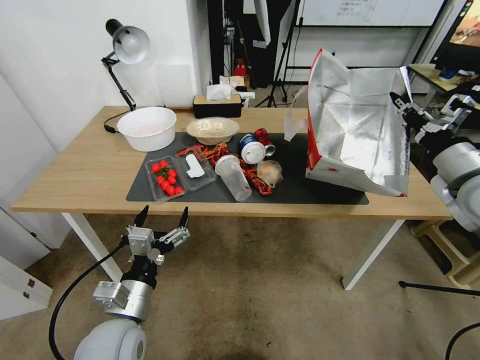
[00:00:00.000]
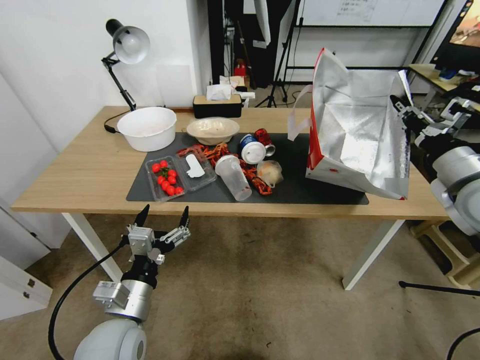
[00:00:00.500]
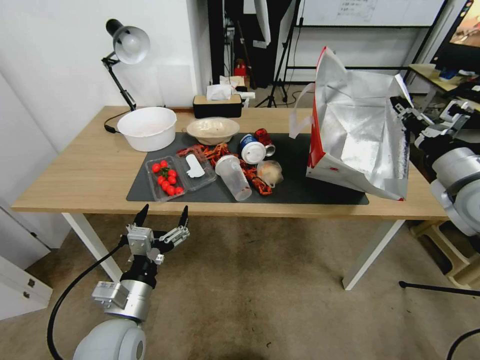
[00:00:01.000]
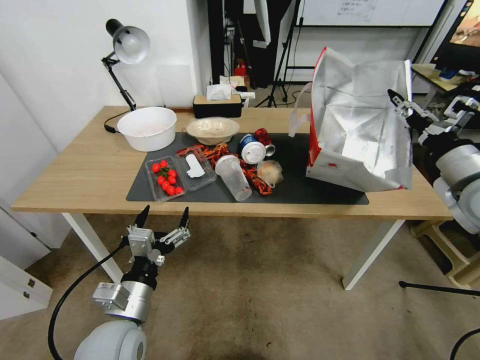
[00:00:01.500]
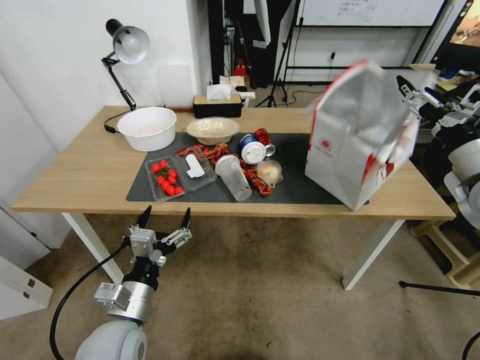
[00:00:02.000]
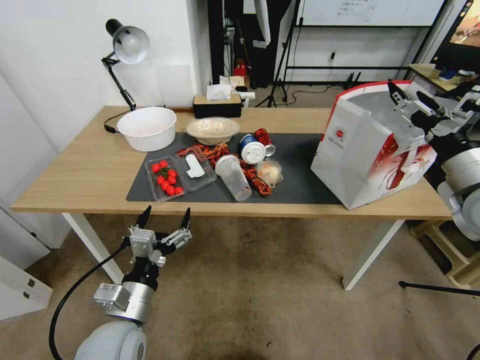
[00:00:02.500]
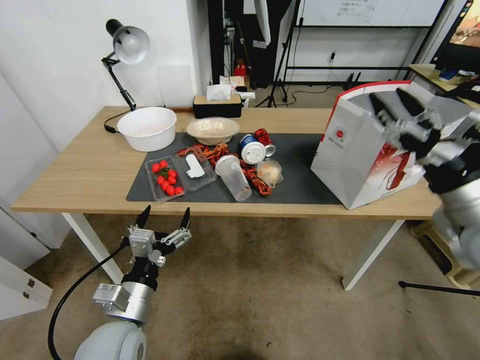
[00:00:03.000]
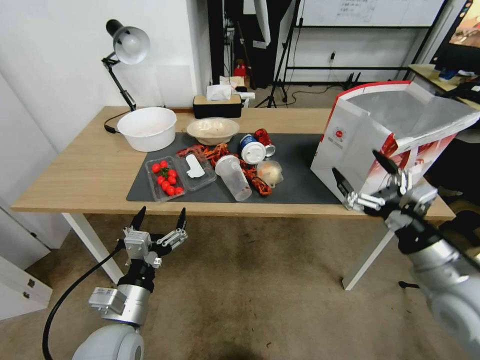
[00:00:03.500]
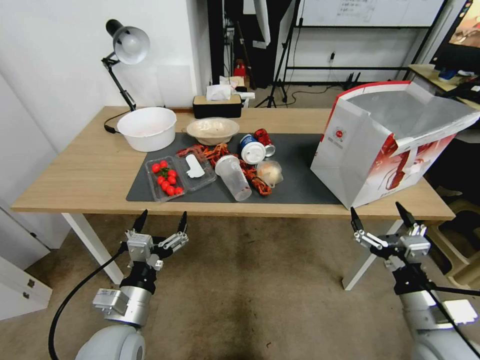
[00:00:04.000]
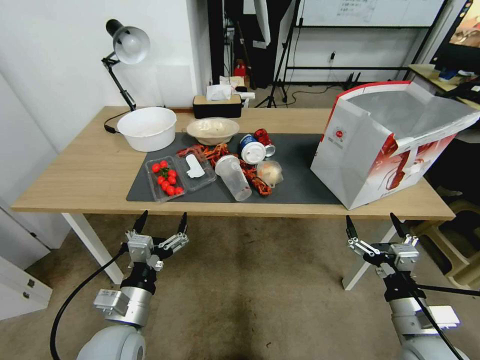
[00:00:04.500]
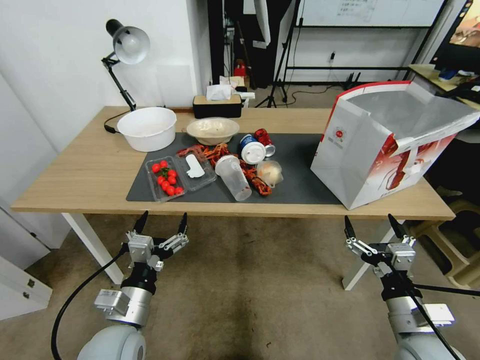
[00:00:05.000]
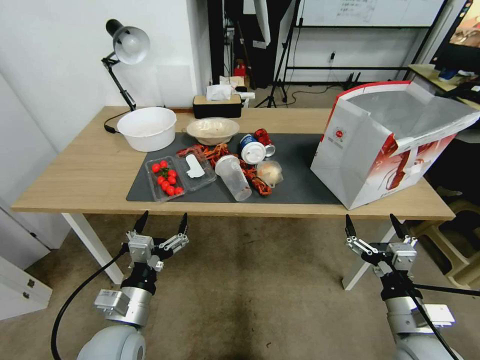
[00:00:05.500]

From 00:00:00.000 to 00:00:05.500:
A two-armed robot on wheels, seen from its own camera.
Task of the whole recording: Pick up the food delivery bag from the floor and place it on the table.
From 00:00:00.000 to 00:00:02.000: The right gripper opens its fingers.
From 00:00:02.000 to 00:00:03.500: The right gripper heads backward, downward and to the left, covering about 20 cm.
From 00:00:03.500 to 00:00:05.500: The right gripper is displaced downward and backward by some 10 cm.
